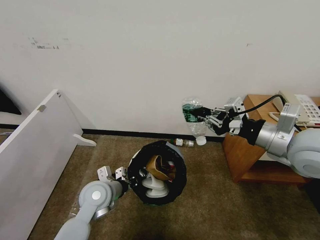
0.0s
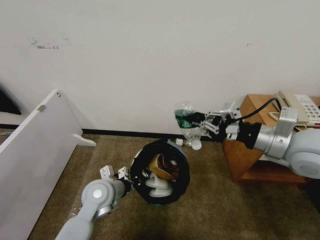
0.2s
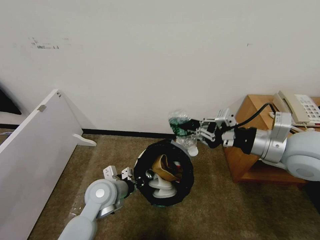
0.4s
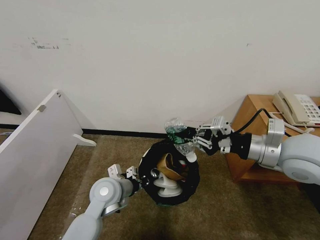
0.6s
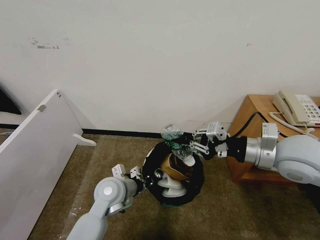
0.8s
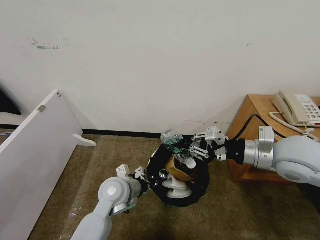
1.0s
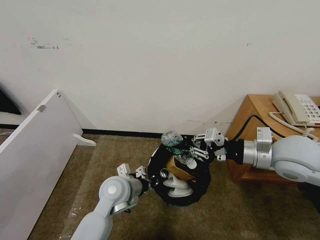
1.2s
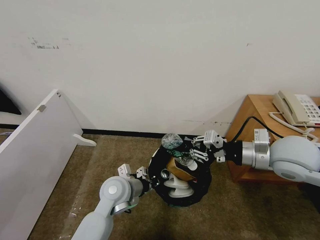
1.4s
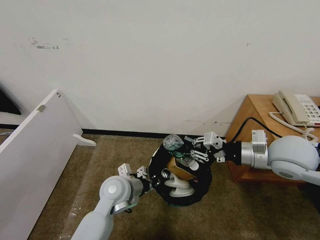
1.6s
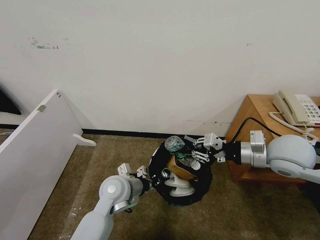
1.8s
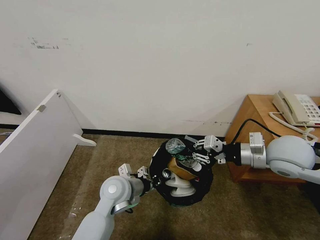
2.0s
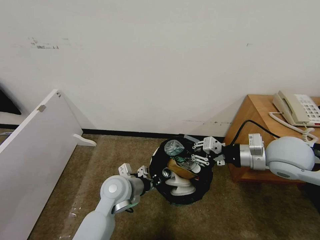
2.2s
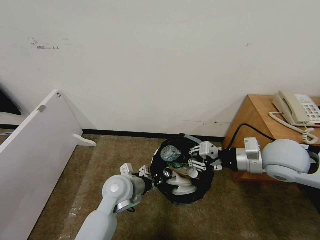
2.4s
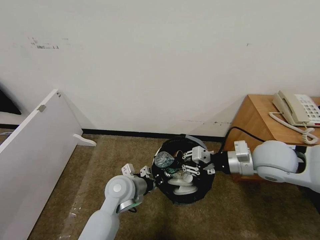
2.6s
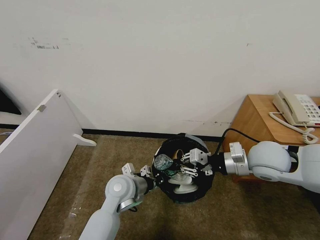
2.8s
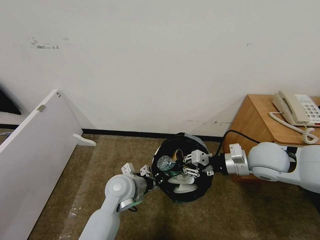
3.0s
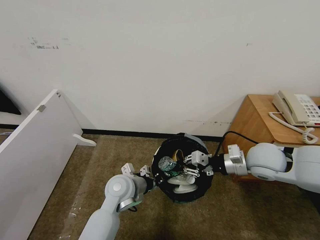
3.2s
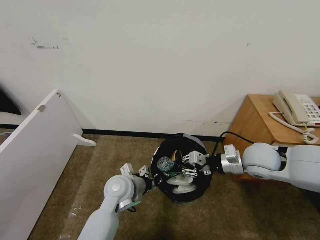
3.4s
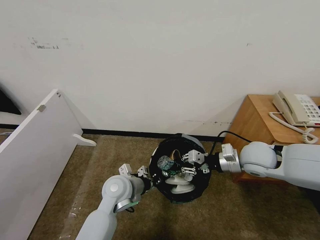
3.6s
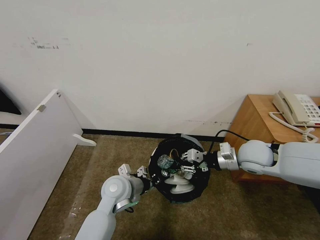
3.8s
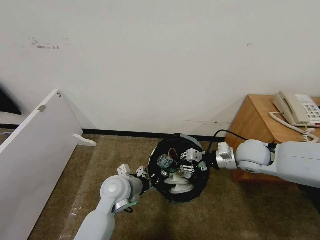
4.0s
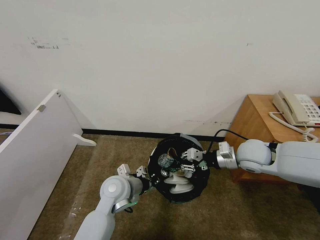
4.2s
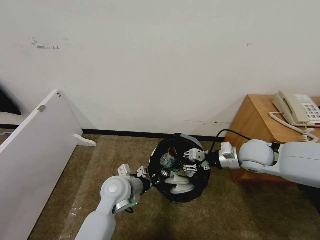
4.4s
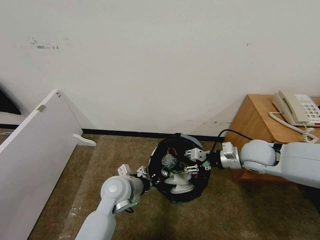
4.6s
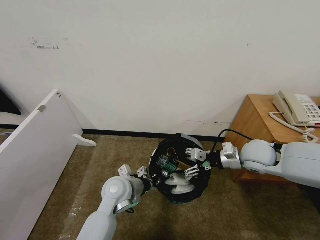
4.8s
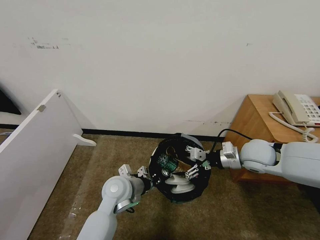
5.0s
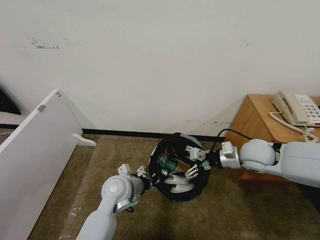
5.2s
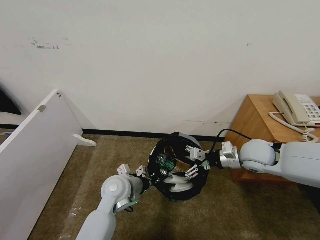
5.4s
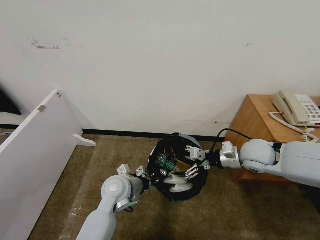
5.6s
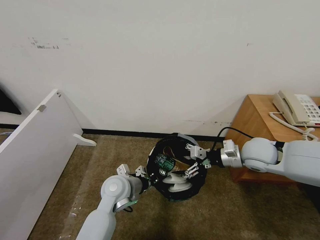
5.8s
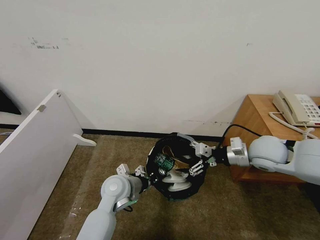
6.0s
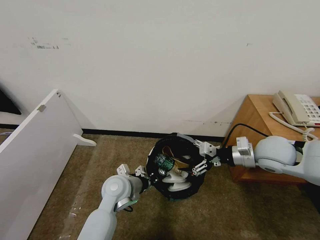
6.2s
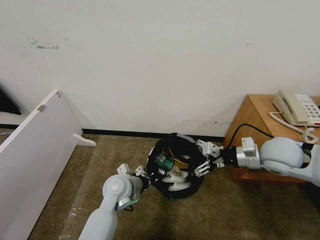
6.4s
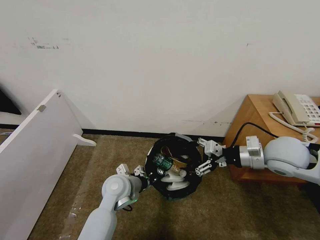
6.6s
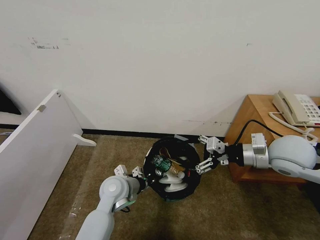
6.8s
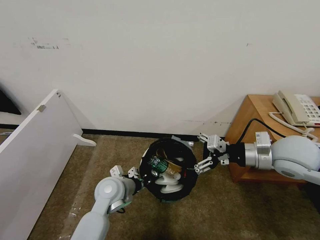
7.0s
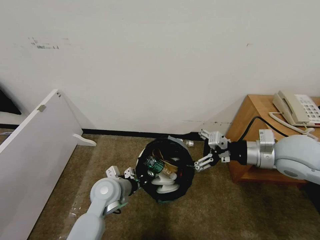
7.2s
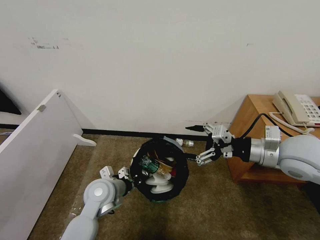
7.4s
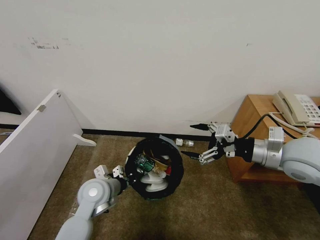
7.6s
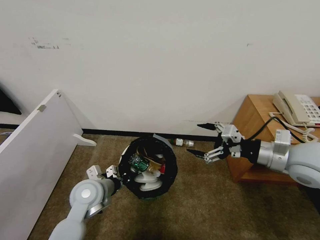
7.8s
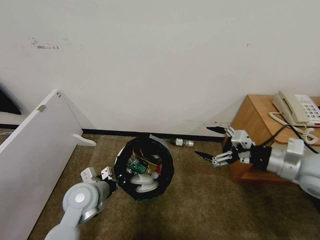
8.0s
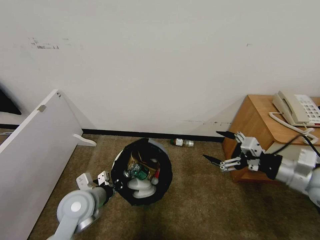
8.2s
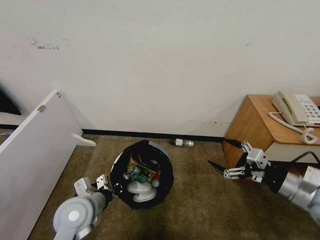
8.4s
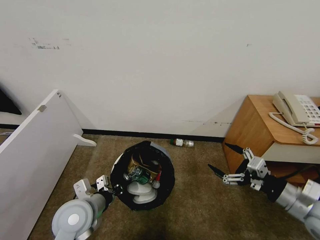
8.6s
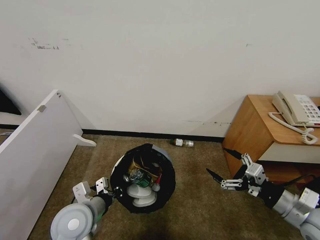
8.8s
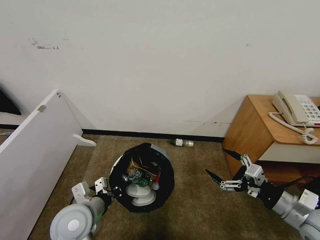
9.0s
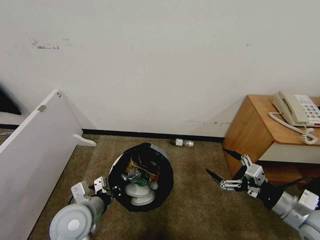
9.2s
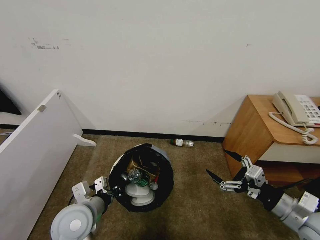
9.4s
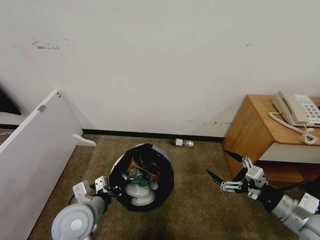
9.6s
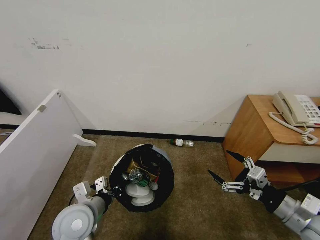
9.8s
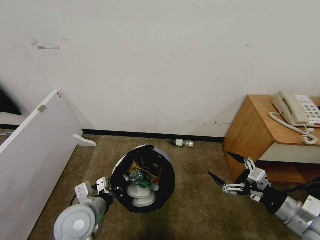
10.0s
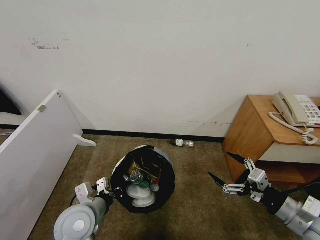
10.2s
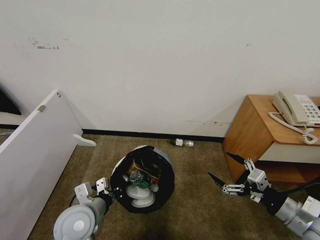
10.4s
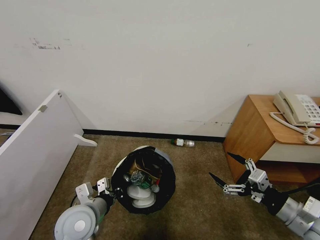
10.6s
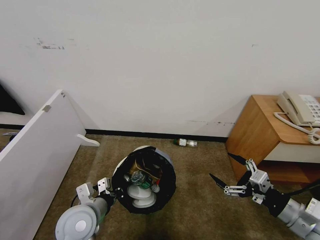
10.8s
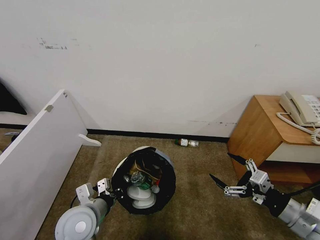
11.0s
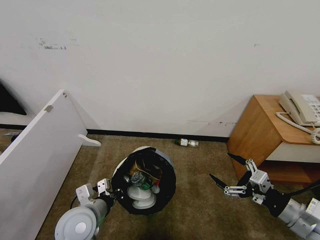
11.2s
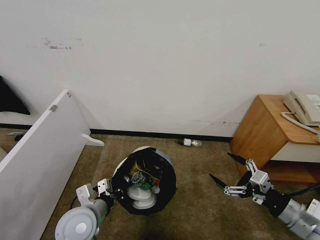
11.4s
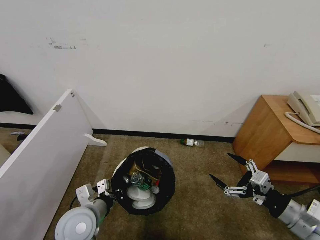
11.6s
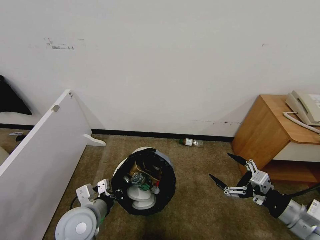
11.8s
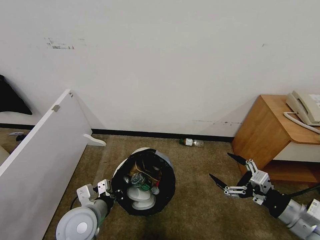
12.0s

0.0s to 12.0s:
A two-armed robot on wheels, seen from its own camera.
Task of the whole recording: Pick up the trash bin and place the garbage on the floor into it.
0.0s to 1.6s: The right gripper heads downward, covering about 5 cm; the left gripper travels to the right by roughly 5 cm.
1.6s to 3.0s: The right gripper travels downward by some 5 cm.
3.0s to 4.4s: The right gripper shifts by about 5 cm.
4.4s to 6.0s: The right gripper opens its fingers.
6.0s to 7.6s: The right gripper heads upward and backward, covering approximately 10 cm. The left gripper heads to the left, covering approximately 5 cm.
7.6s to 9.0s: The left gripper is displaced backward by approximately 10 cm; the right gripper goes roughly 15 cm backward and downward.
9.0s to 10.4s: The grippers make only small movements.
10.4s to 12.0s: The two grippers keep their place.

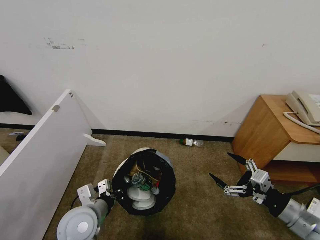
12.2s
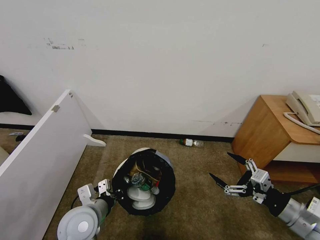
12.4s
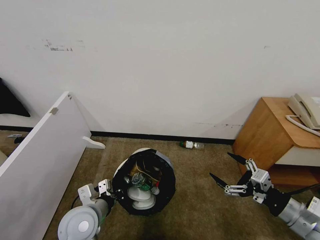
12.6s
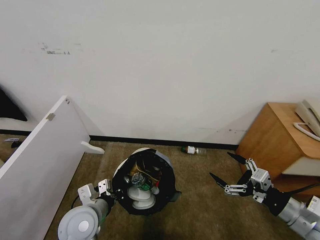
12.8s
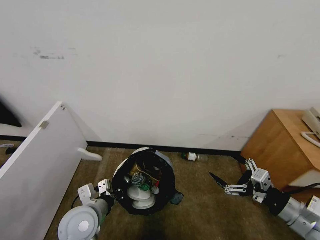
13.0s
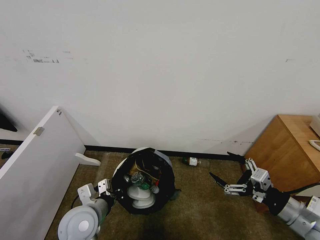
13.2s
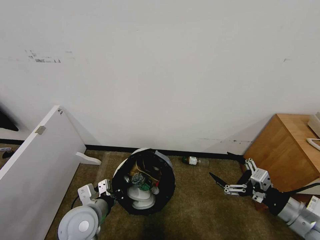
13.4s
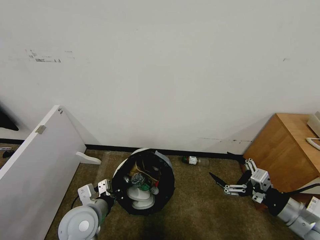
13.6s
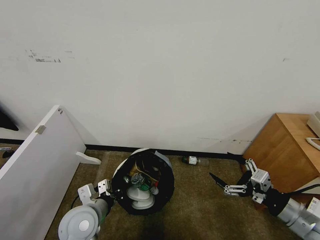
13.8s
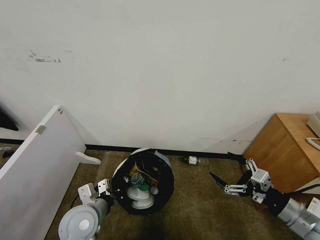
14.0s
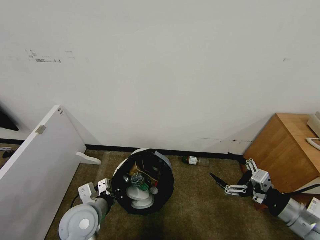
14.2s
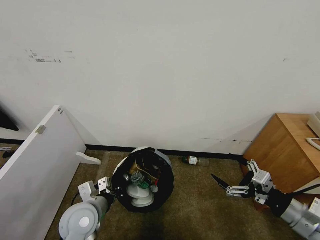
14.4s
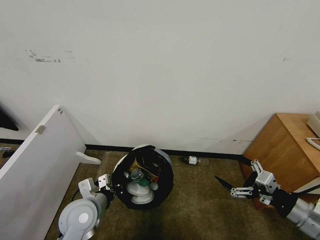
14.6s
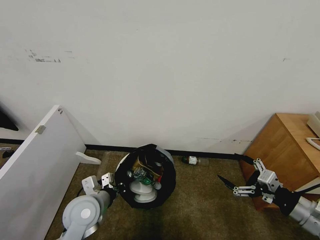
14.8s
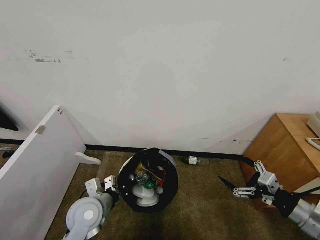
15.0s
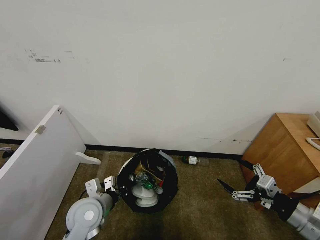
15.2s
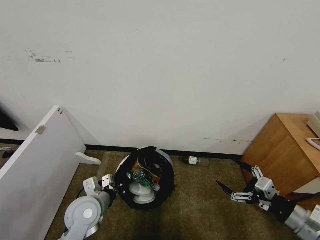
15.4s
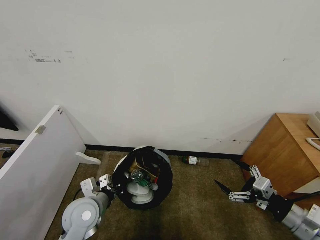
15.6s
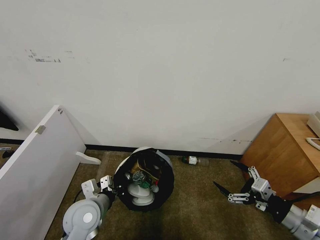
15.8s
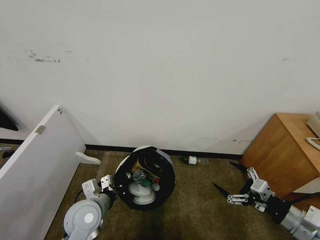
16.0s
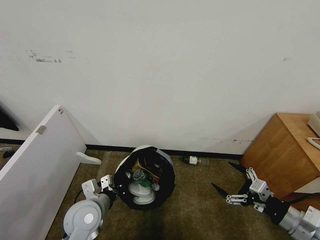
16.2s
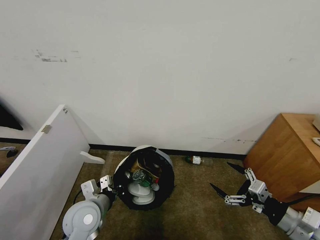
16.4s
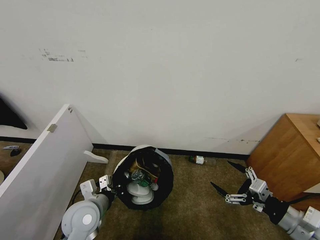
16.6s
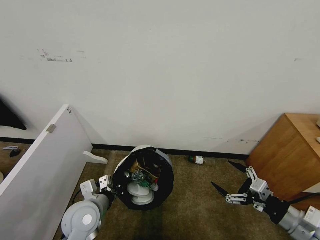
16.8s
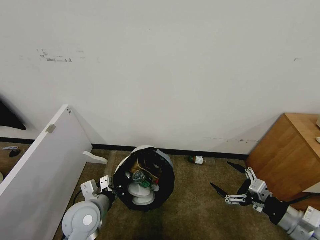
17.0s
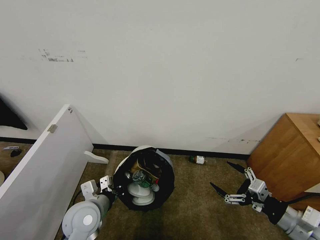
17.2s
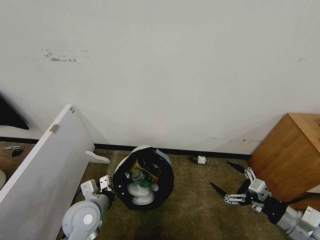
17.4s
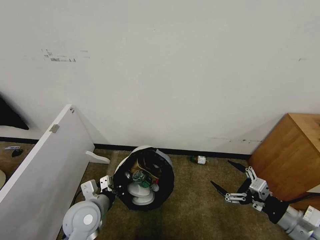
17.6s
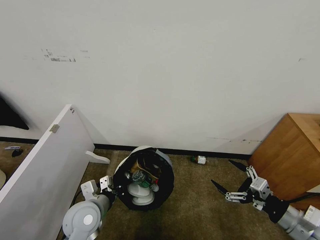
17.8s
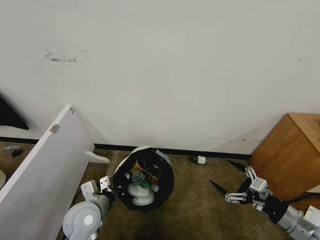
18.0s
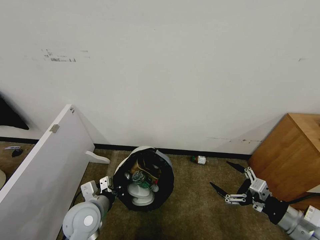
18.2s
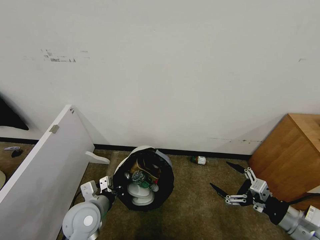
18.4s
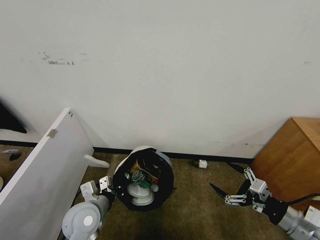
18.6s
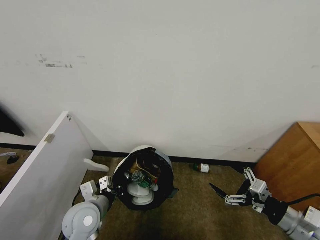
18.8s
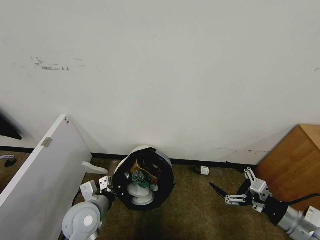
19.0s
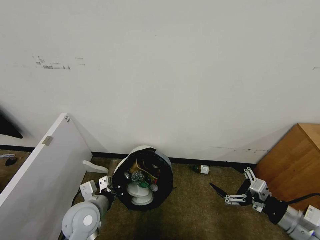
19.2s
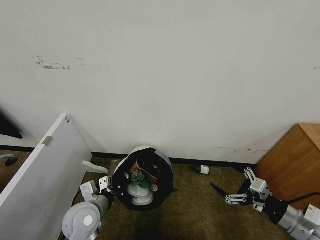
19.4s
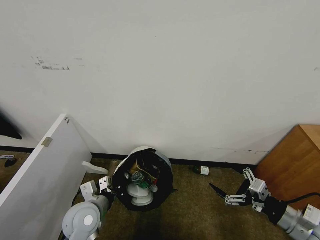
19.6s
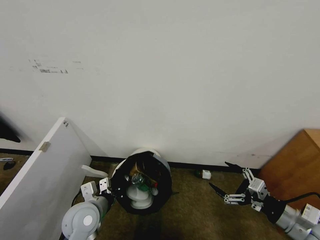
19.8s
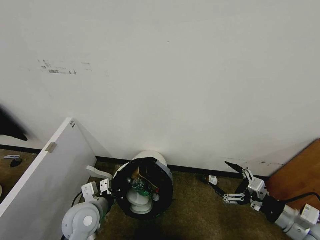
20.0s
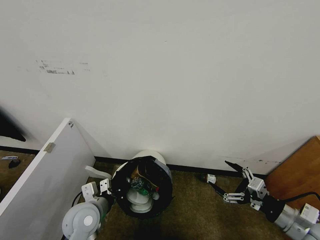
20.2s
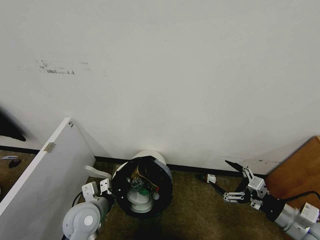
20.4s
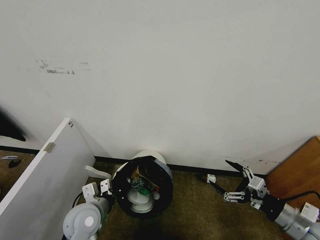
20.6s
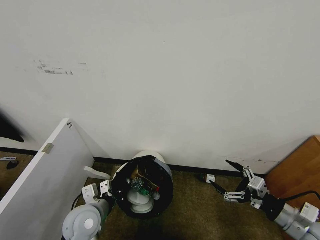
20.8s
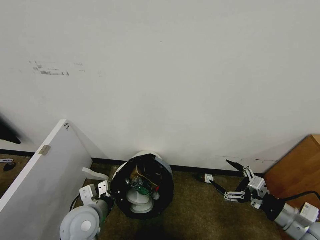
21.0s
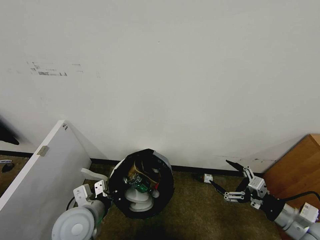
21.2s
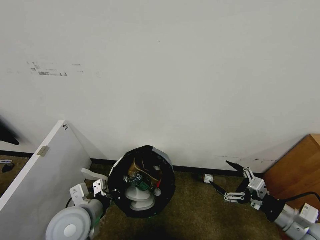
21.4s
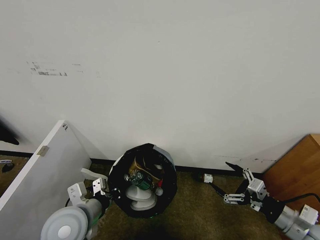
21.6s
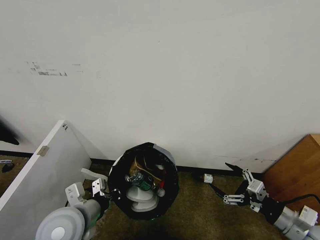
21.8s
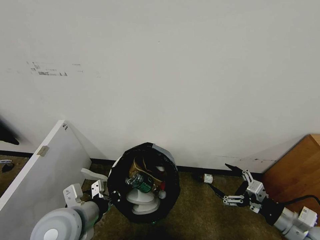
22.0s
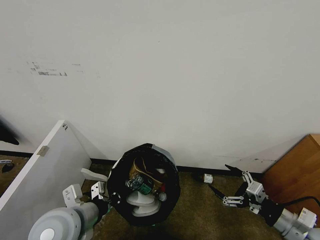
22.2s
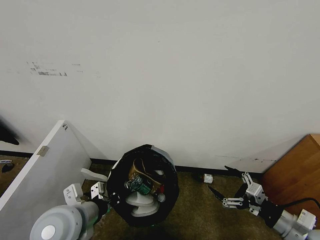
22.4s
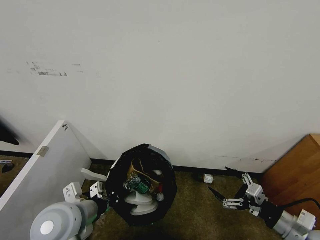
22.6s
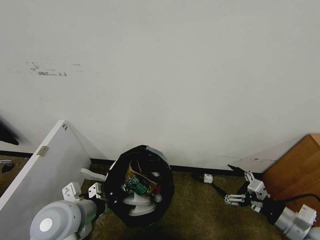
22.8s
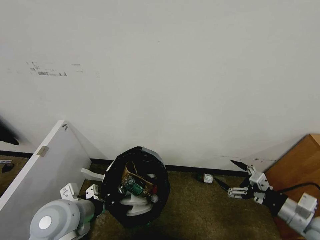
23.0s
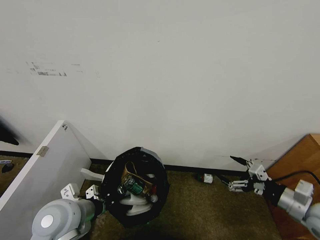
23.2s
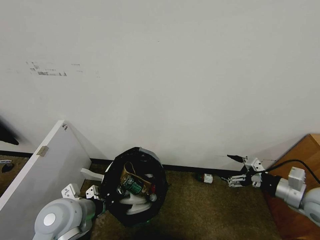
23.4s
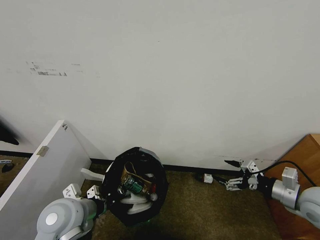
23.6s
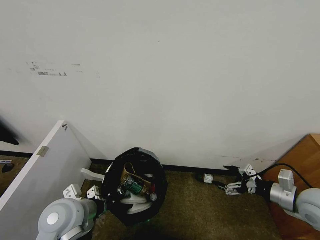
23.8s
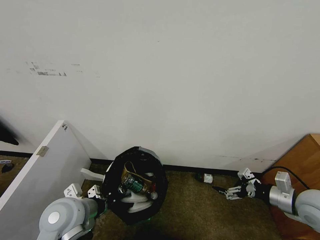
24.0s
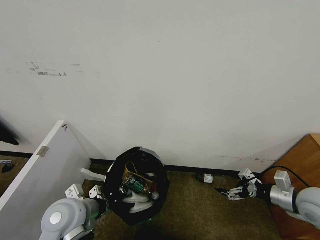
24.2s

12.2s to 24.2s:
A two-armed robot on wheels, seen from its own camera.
Task of the whole recording: Pick up the trash bin and place the garbage on the floor into it.
12.2s to 13.8s: Both grippers stay about where they are.
13.8s to 16.6s: The grippers stay close to where they were, moving slightly.
16.6s to 19.8s: Neither gripper changes place.
19.8s to 21.2s: The grippers move only a little.
21.2s to 22.6s: The left gripper shifts some 5 cm upward.
22.6s to 24.2s: The right gripper shifts some 10 cm forward.
